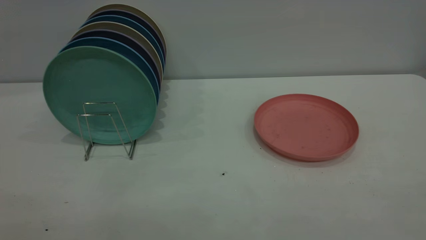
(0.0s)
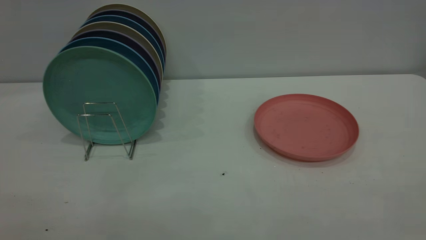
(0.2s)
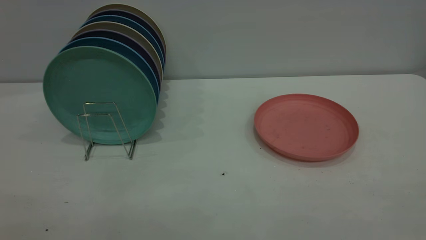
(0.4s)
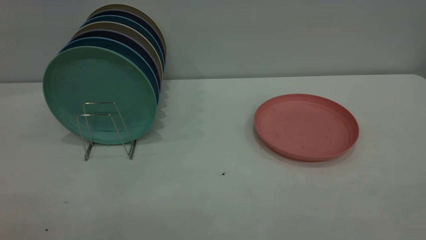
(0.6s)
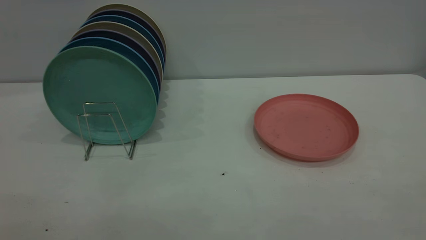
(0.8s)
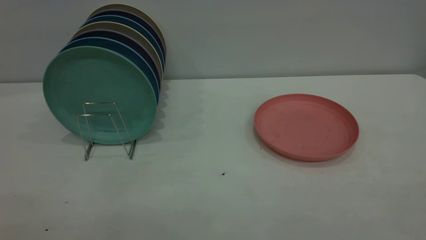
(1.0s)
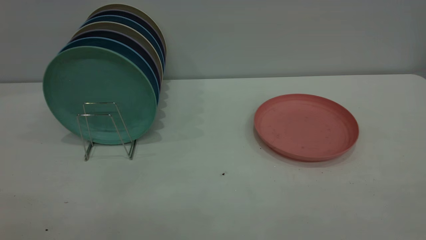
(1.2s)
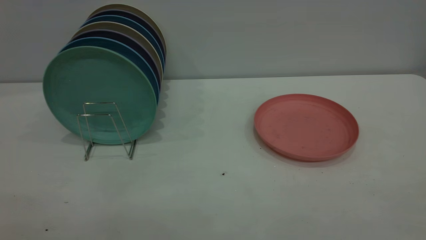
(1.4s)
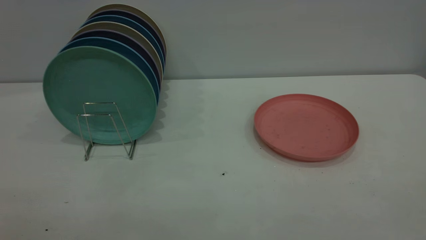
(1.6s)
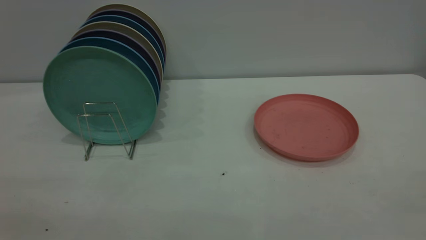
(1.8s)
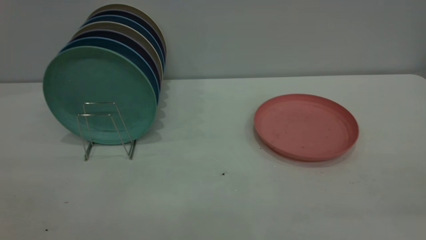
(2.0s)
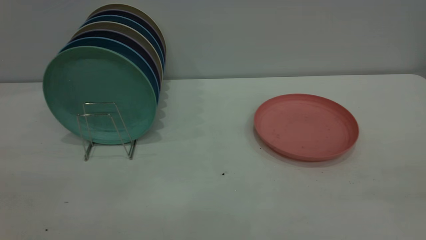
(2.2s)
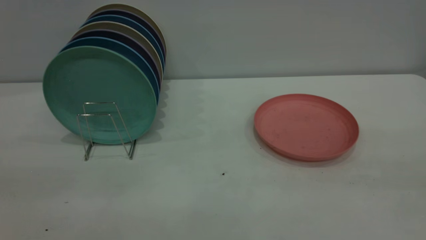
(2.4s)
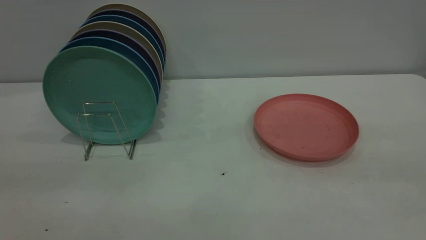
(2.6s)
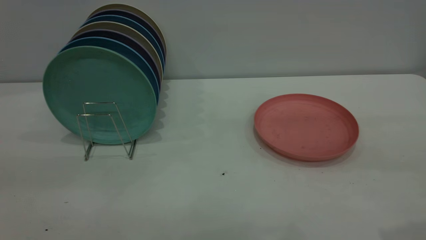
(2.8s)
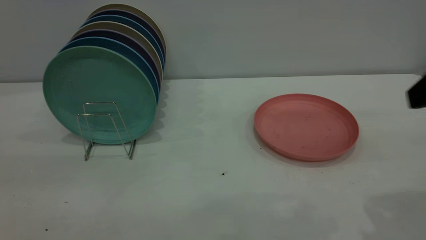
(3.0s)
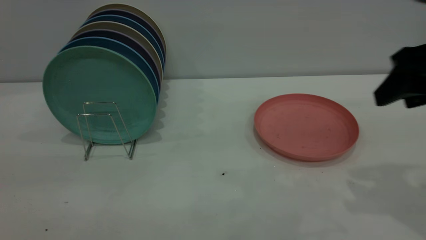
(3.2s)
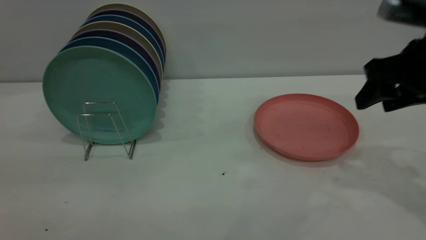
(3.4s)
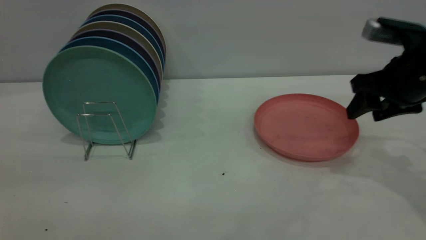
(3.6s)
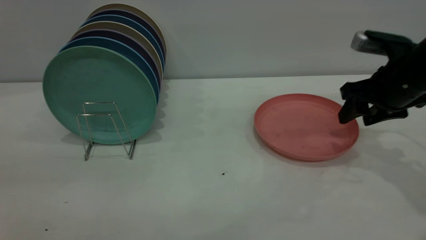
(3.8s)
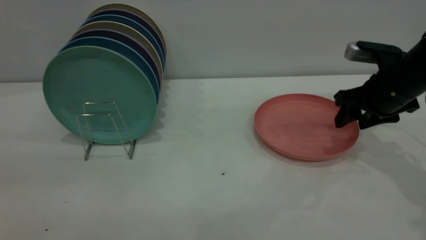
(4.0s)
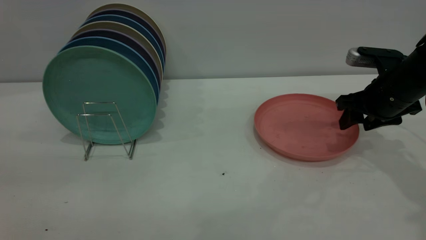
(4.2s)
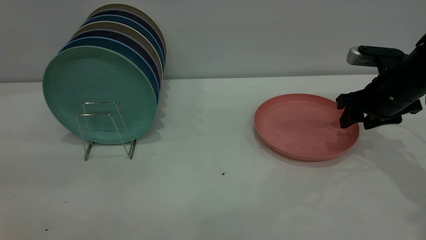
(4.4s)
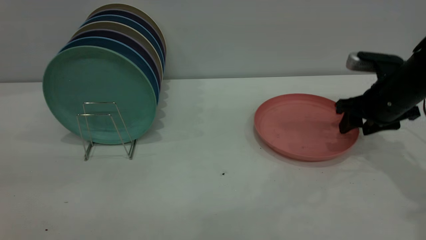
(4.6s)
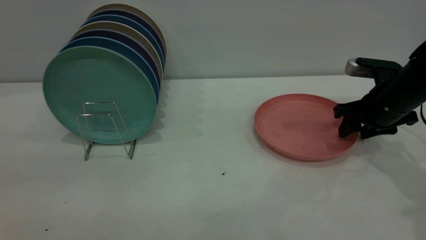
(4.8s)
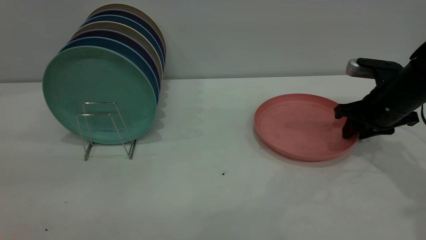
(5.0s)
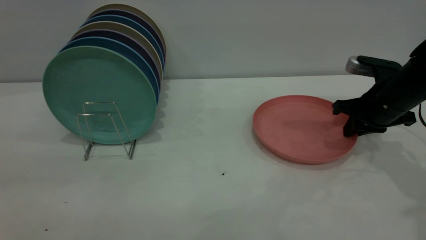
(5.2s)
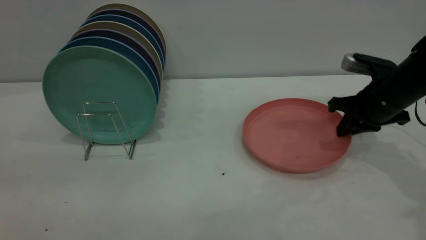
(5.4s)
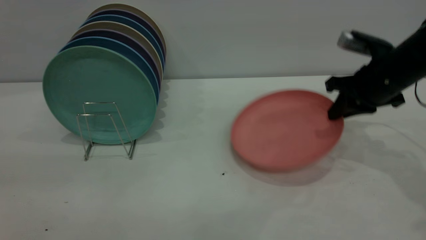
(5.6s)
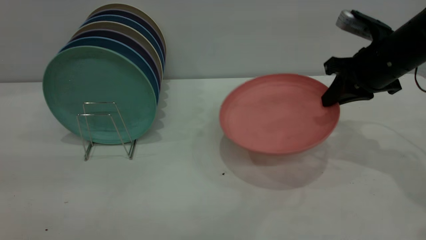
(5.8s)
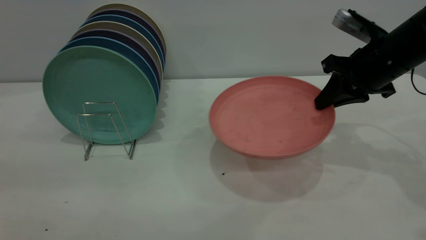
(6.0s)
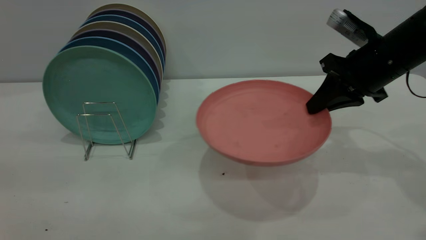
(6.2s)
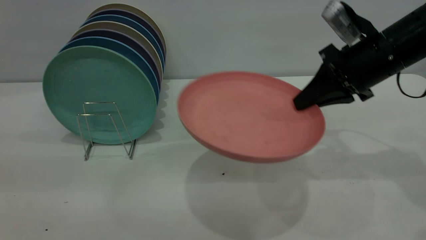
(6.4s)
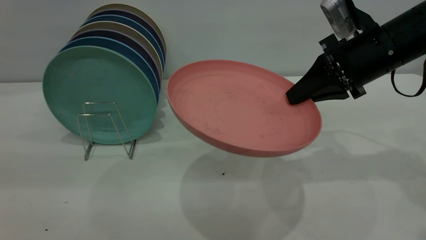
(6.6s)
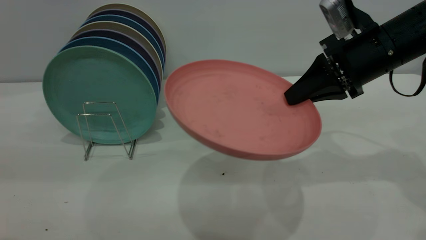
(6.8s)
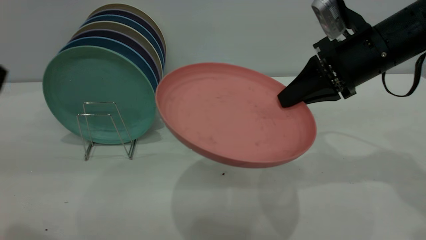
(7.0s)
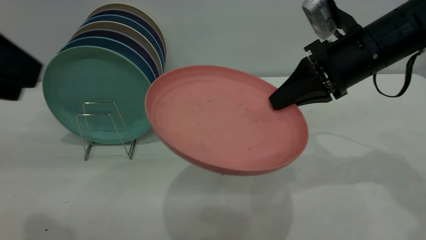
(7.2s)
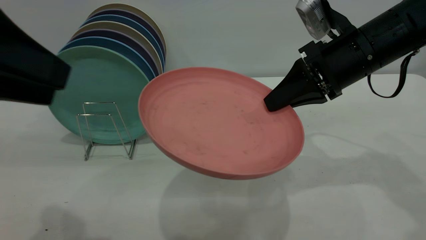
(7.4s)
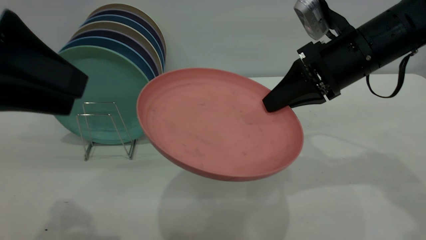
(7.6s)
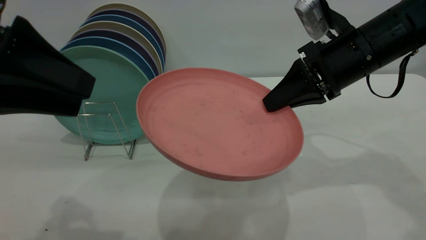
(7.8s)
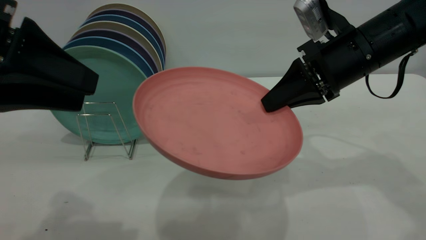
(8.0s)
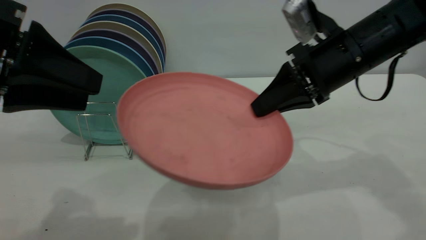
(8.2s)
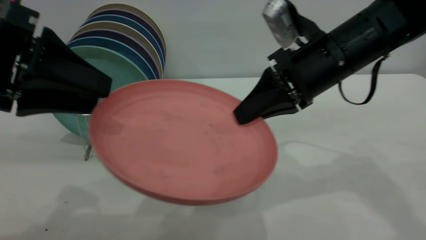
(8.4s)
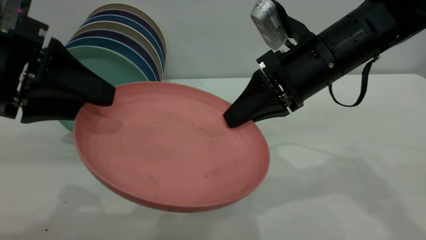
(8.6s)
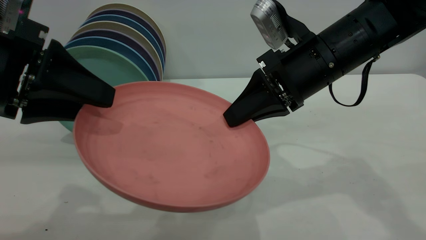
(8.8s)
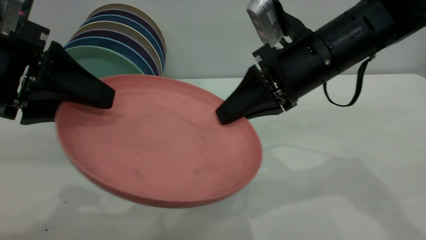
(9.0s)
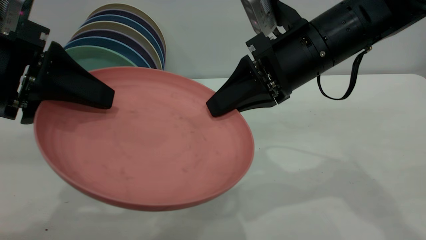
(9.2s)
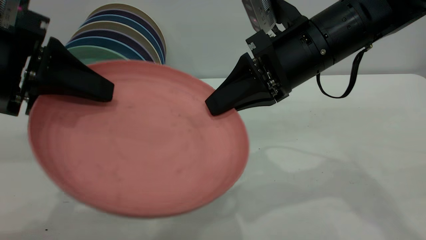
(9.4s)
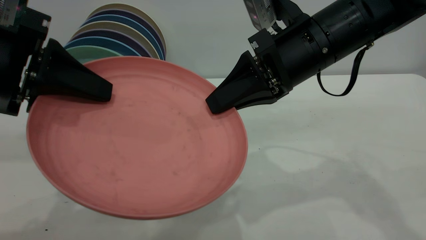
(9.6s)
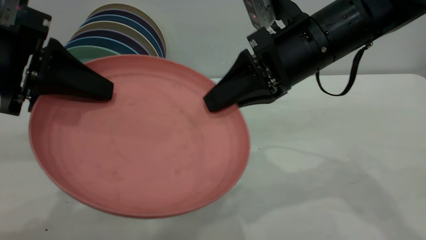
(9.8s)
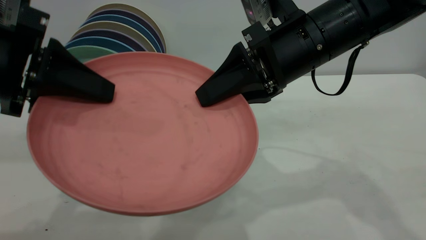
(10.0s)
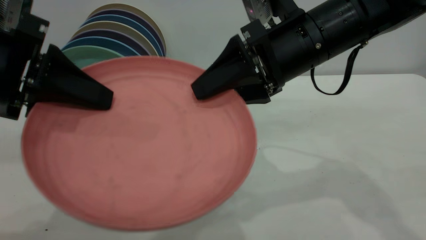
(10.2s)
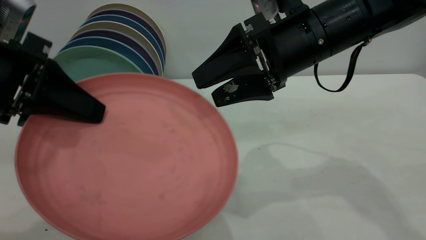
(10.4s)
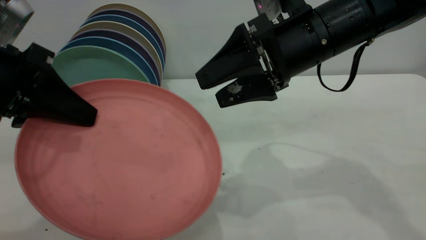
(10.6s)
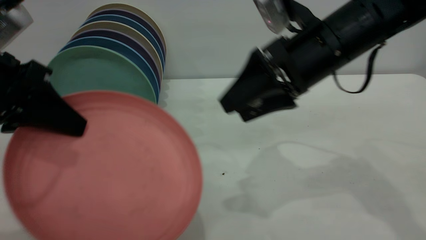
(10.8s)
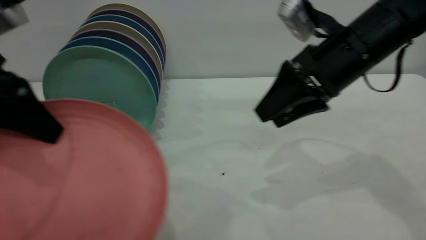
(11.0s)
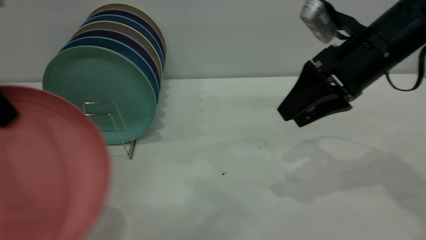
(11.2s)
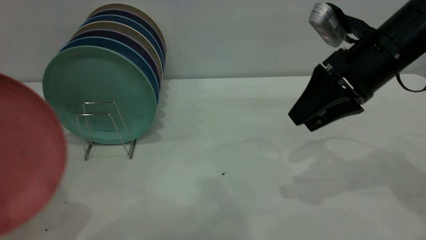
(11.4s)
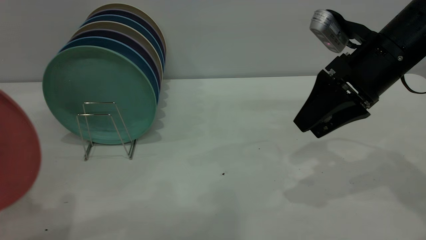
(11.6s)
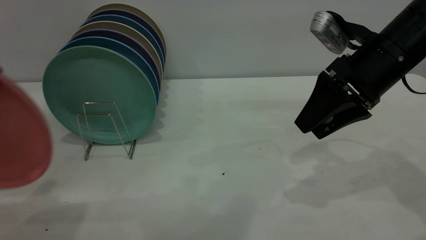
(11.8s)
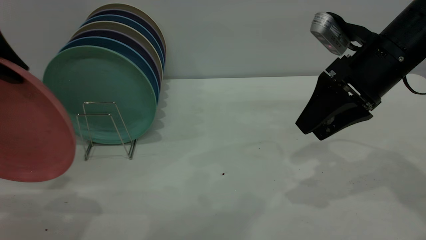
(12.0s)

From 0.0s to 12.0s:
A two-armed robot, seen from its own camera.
Task of the whole recording: the right gripper grasp the pink plate, the right gripper pass the pink plate to the left gripper, and the left gripper place the pink plate on the plate rack.
Step, from 0.0s to 5.6s: Pick up the plate with the right gripper.
Step, from 5.8s to 10.4s: Pass the plate from the right gripper to the left gripper.
From 3.0s to 4.4s: The right gripper heads forward and downward, covering about 25 cm.
From 4.4s to 6.0s: The right gripper heads upward, covering approximately 5 cm, and closes its fingers.
From 6.0s to 7.6s: The left gripper travels forward and downward by approximately 15 cm, while the right gripper goes approximately 5 cm to the left.
From 7.6s to 9.0s: The right gripper heads to the left, covering some 5 cm.
From 9.0s to 10.4s: The right gripper opens, while the left gripper closes its fingers.
From 10.4s to 12.0s: The right gripper heads to the right, covering some 10 cm; the left gripper travels upward by about 5 cm.

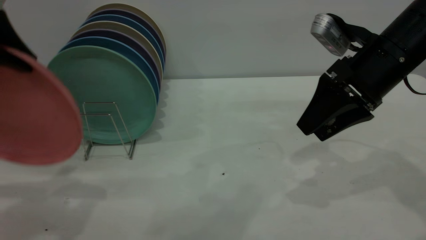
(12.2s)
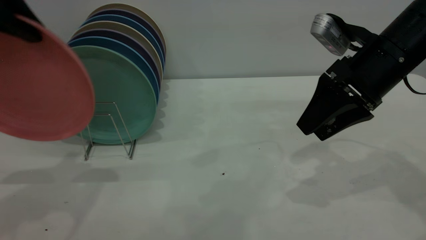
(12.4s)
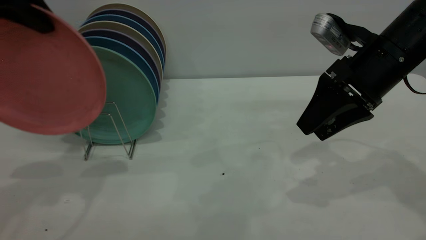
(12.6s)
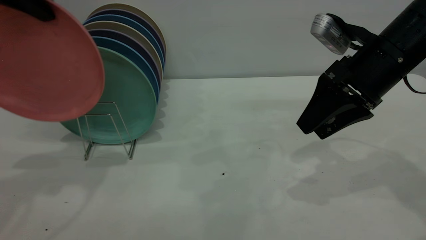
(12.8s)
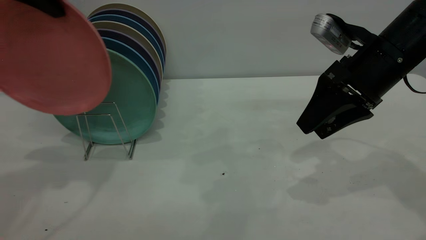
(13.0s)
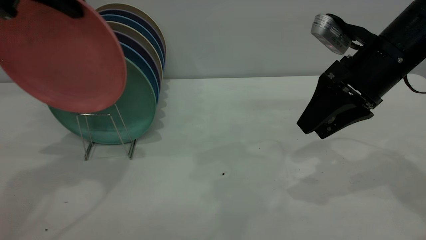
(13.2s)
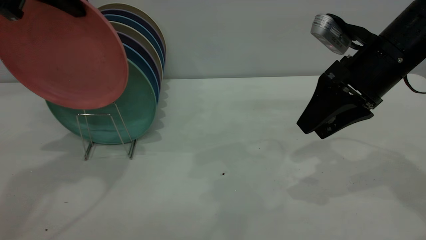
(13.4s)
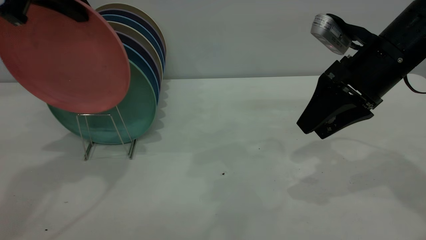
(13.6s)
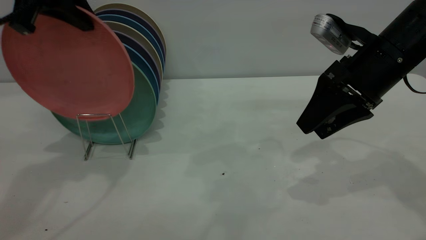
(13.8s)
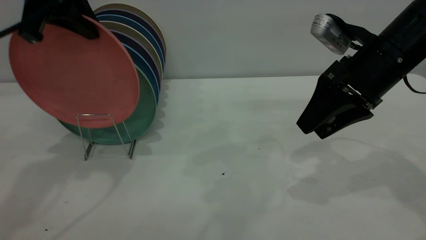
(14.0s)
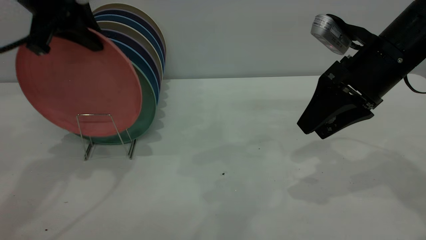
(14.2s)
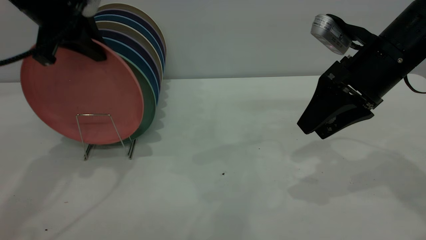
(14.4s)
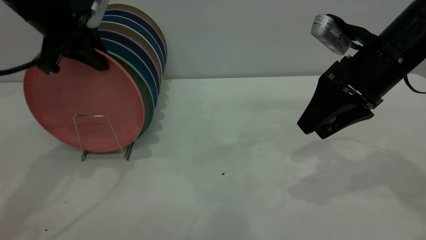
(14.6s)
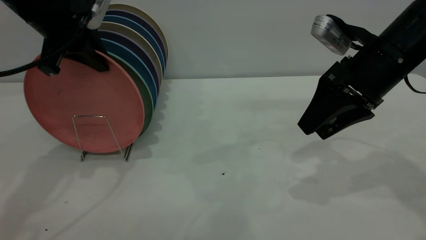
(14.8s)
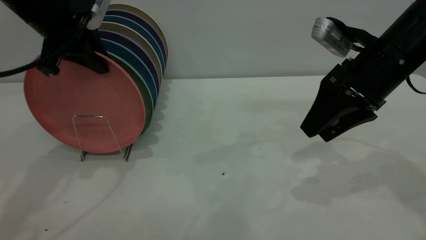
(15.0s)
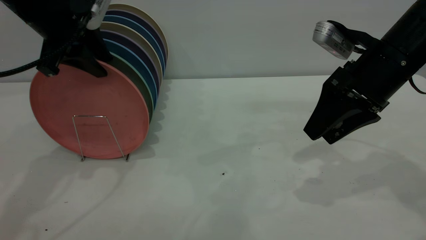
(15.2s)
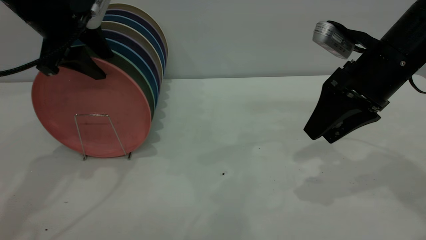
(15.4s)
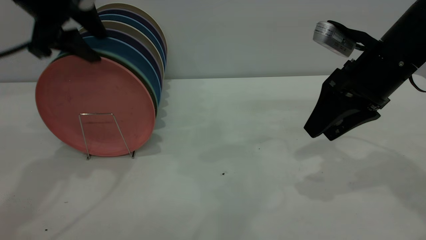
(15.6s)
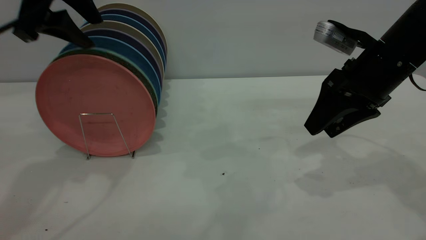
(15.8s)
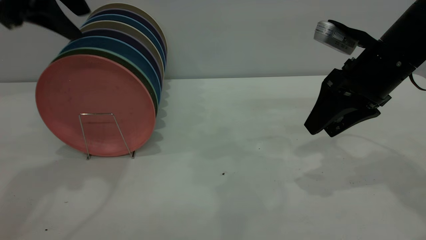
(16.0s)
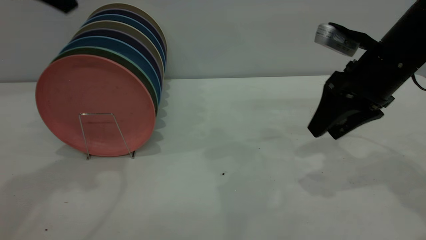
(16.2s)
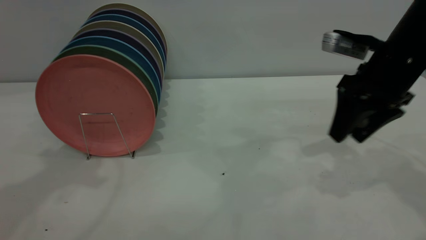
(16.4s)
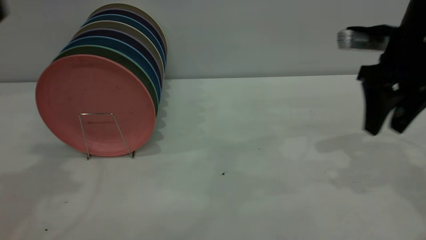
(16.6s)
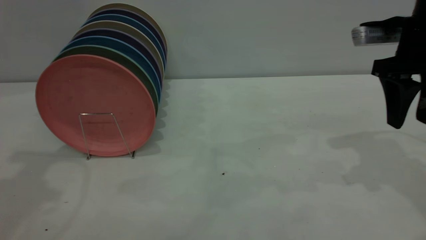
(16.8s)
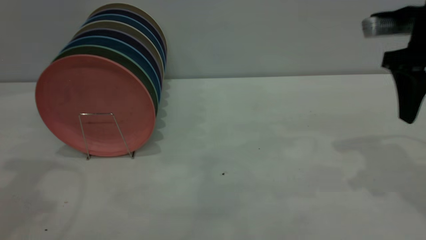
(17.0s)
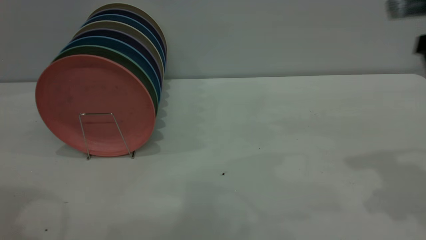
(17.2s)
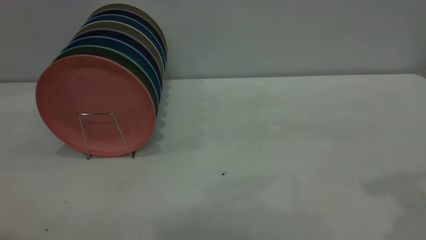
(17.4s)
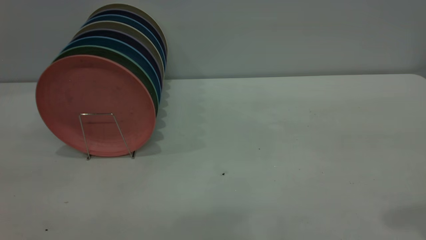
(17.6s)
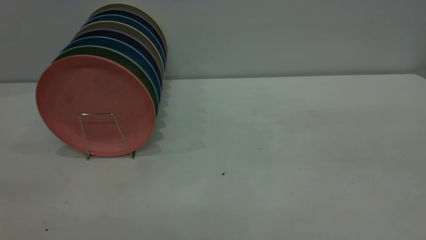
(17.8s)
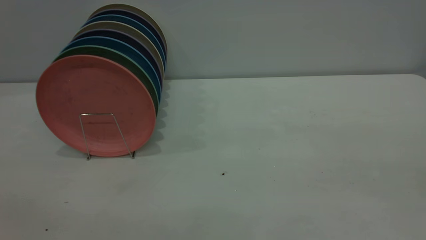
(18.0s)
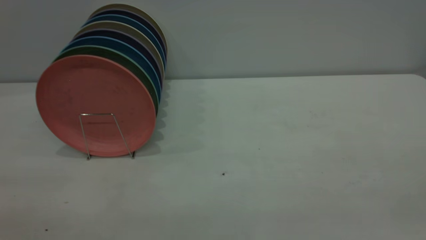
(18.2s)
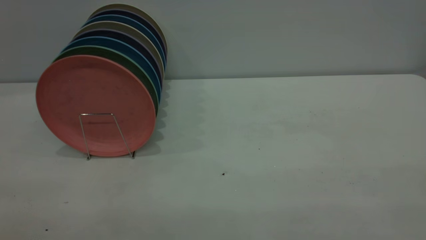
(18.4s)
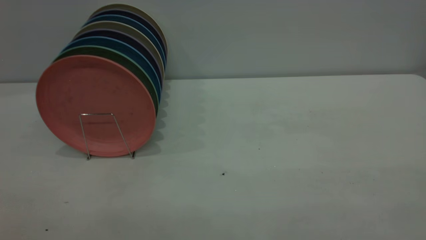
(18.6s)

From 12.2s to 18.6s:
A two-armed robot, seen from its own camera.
Task of the whole recording: the right gripper grasp the pink plate, the right gripper pass the pink plate to the left gripper, and the left gripper place the pink plate on the plate rack.
Step, from 12.2s to 16.0s: Place the plate on the shelf.
From 12.2s to 13.8s: The left gripper travels forward by approximately 10 cm.
From 13.8s to 15.4s: The left gripper heads downward, covering roughly 5 cm, and opens.
From 15.4s to 17.0s: The left gripper goes roughly 15 cm backward, upward and to the left. The right gripper moves upward, approximately 5 cm.
From 17.0s to 18.6s: The right gripper is displaced backward by about 35 cm.
